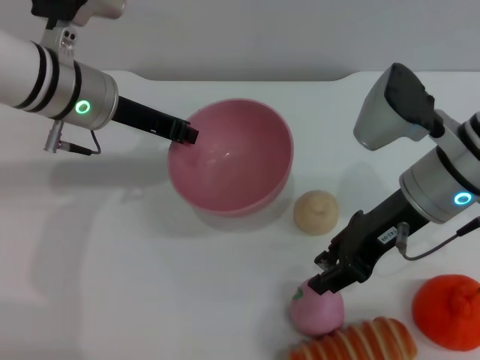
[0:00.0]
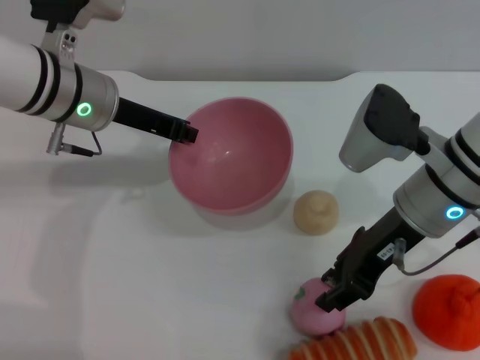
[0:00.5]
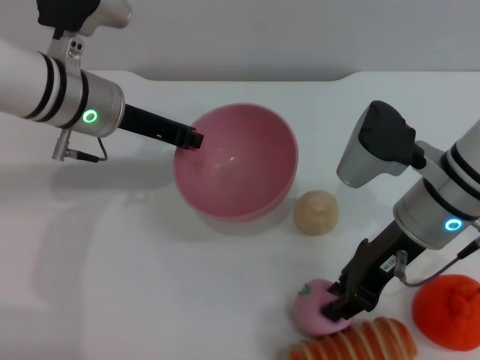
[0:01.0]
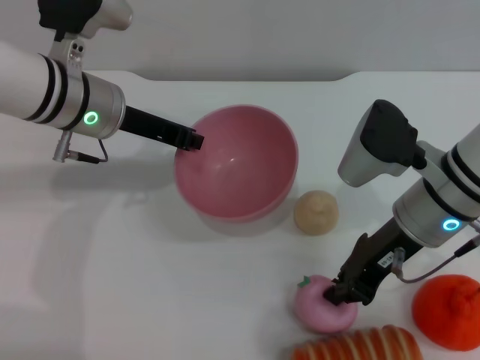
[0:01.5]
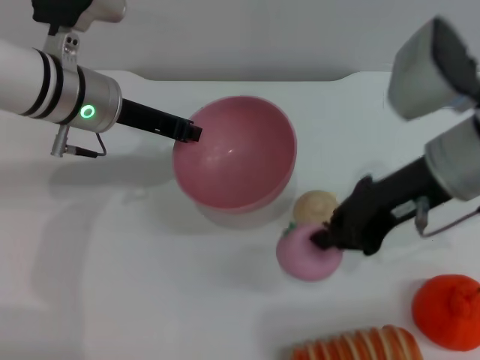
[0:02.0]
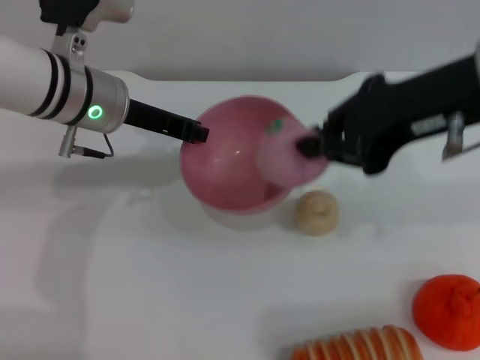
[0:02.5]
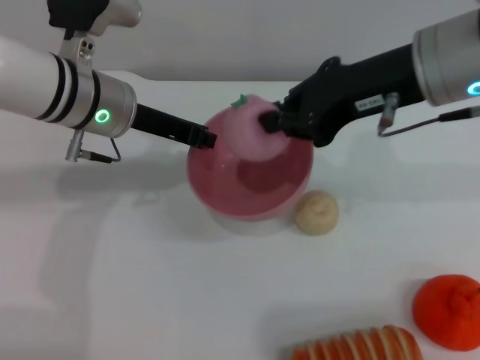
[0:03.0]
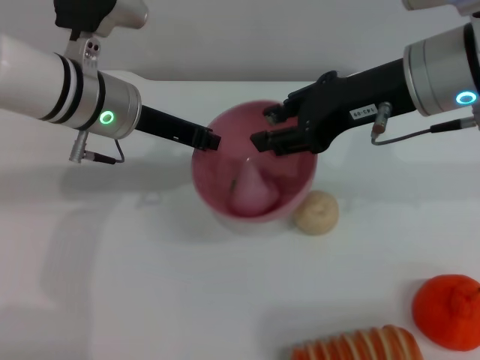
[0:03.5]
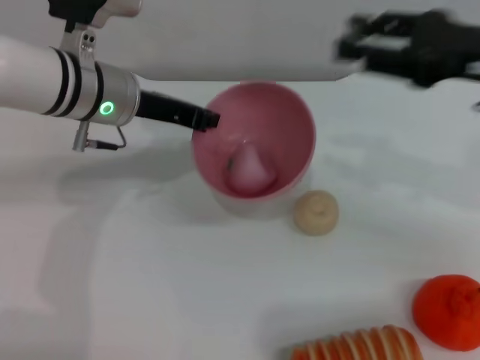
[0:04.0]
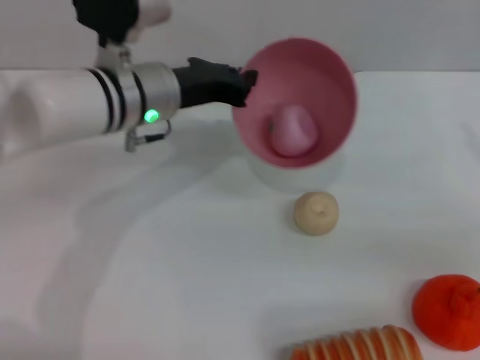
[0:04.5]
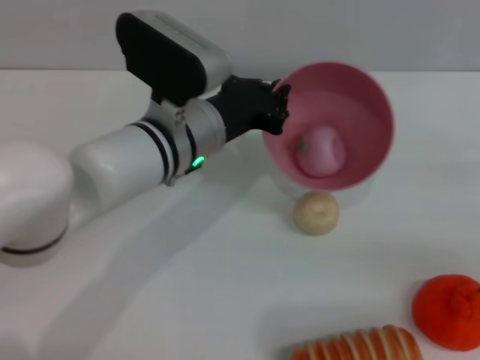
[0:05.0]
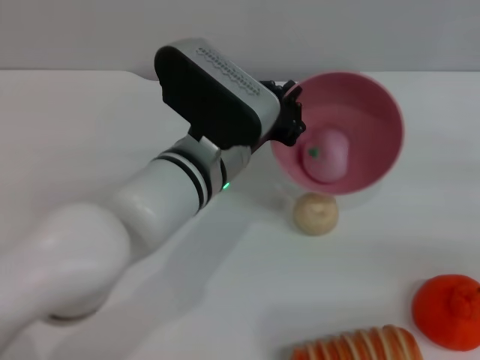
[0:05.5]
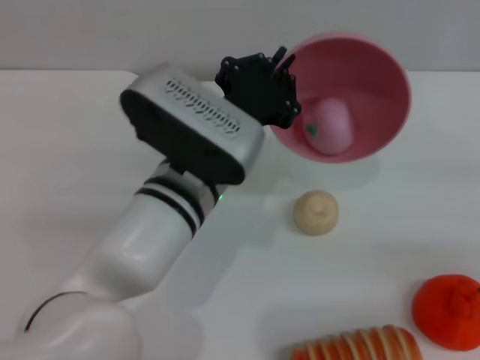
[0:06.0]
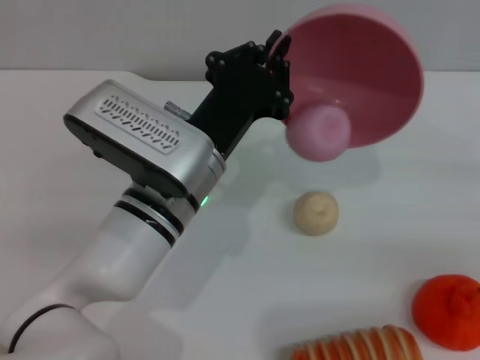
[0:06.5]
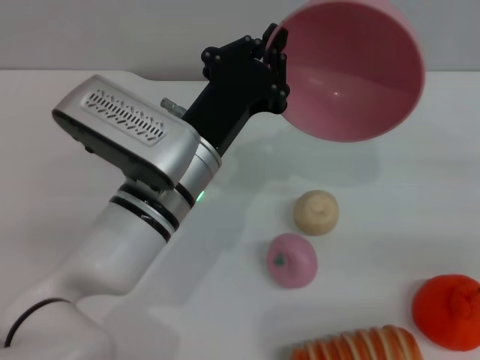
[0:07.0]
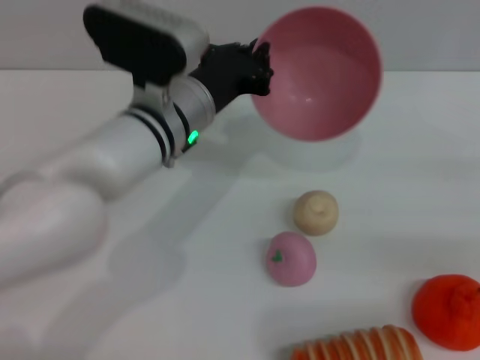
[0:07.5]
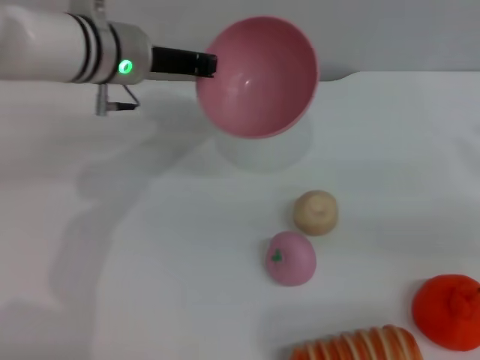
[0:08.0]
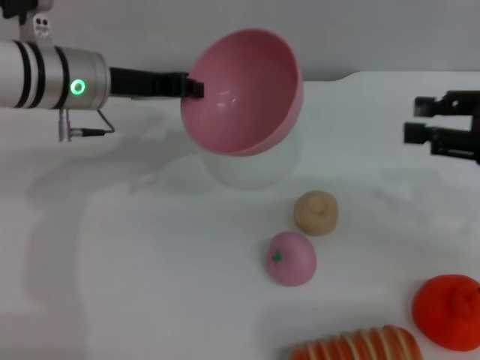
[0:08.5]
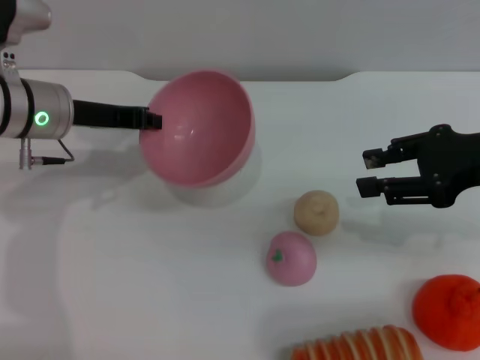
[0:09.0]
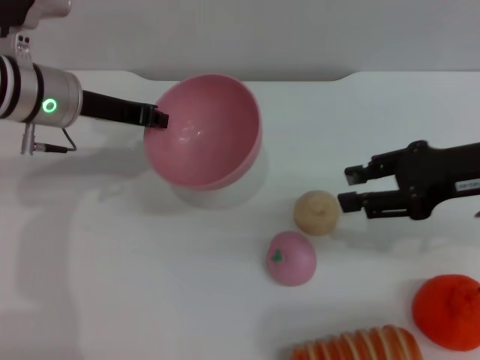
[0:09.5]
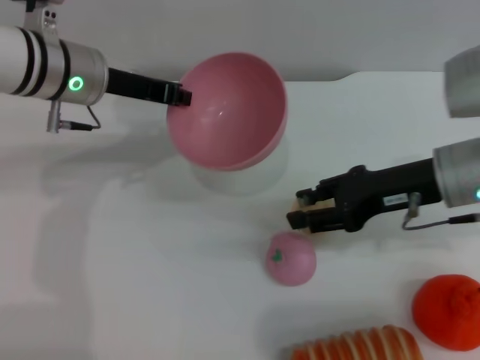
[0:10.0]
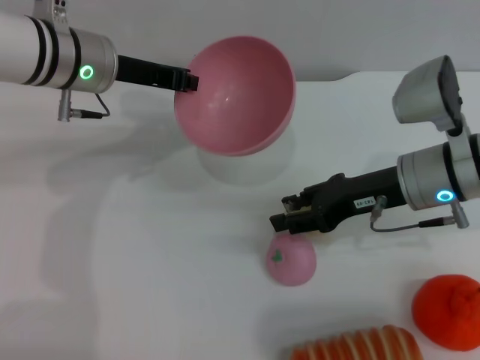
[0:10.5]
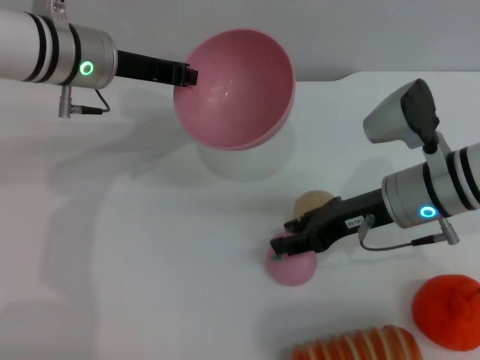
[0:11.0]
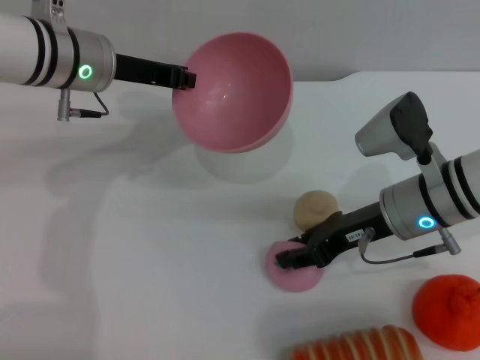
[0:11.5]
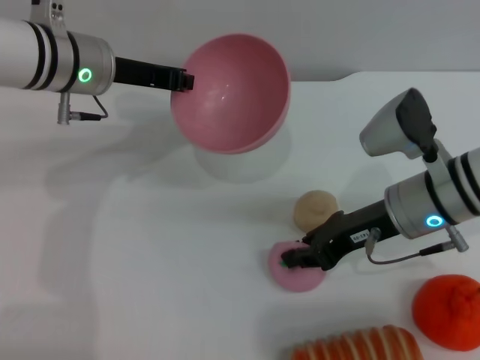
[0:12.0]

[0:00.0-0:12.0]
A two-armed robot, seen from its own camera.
Task of the whole recording: put the peach into the pink bowl and pour it out repeatedly.
Step, 0:00.0 to 0:02.0: Pick up the peach with the right gripper.
Step, 0:02.5 to 0:03.5: Place the peach into the bowl.
Step, 0:04.0 to 0:07.0: Pour the peach out of bowl.
0:00.0 to 0:02.0: The right gripper ends up about 5 cm from where it was, and closes its fingers.
0:02.0 to 0:04.0: The right gripper moves to the right, some 10 cm, and opens up.
0:04.0 to 0:06.0: The left gripper goes about 15 cm backward and to the right, while the right gripper goes about 20 cm to the right and downward.
0:06.0 to 0:08.0: The left gripper shifts about 15 cm forward, to the left and upward. Meanwhile the right gripper goes roughly 5 cm to the left.
0:08.0 to 0:10.0: The right gripper shifts roughly 20 cm to the left.
0:10.0 to 0:12.0: The right gripper closes its fingers.

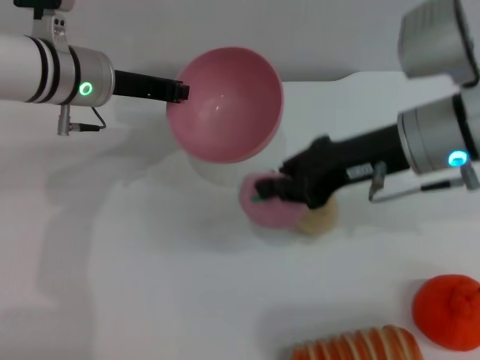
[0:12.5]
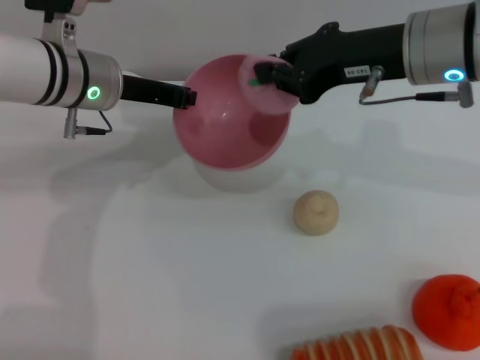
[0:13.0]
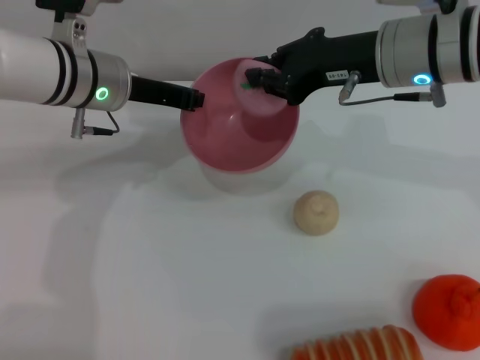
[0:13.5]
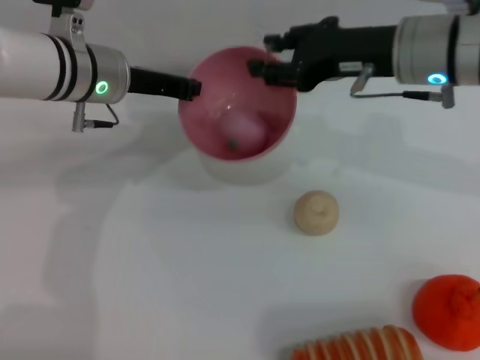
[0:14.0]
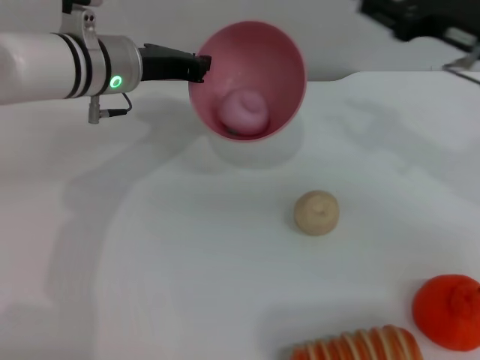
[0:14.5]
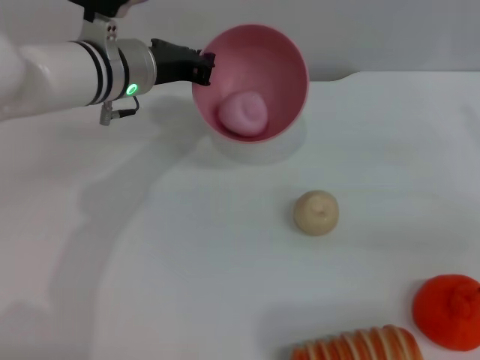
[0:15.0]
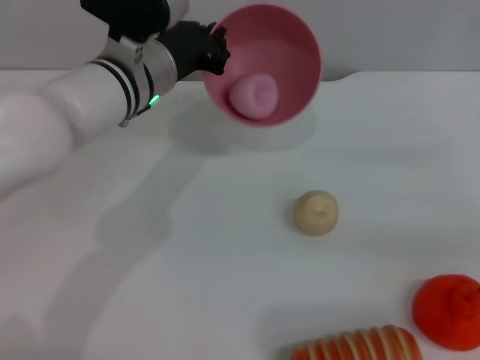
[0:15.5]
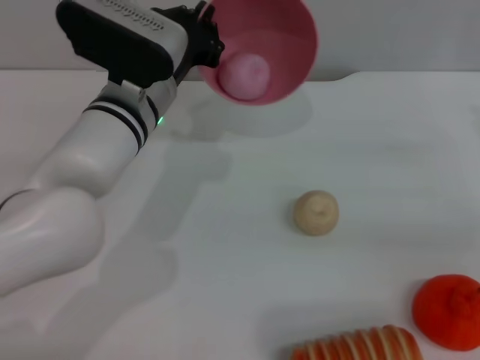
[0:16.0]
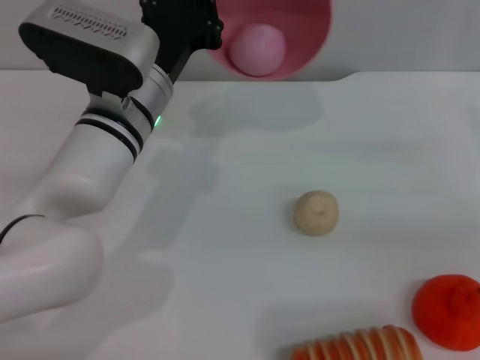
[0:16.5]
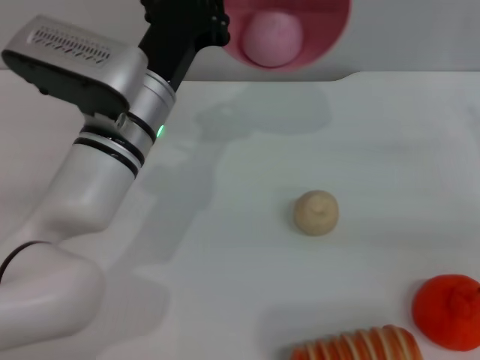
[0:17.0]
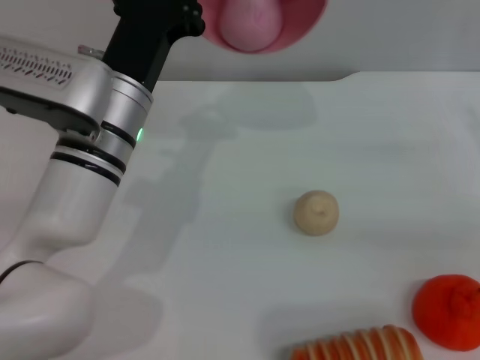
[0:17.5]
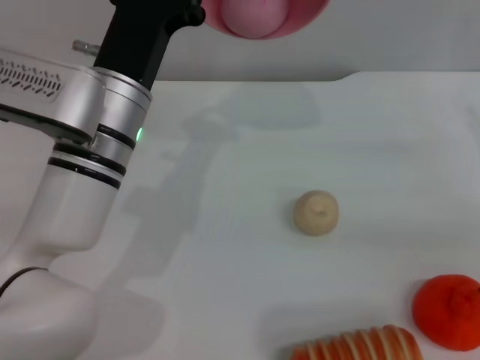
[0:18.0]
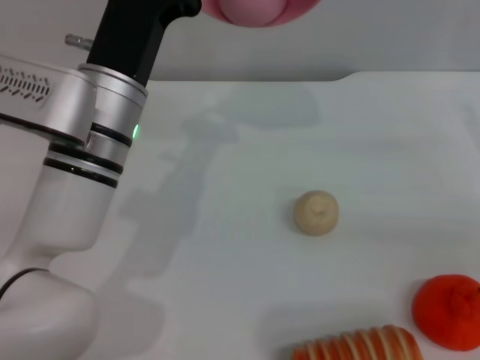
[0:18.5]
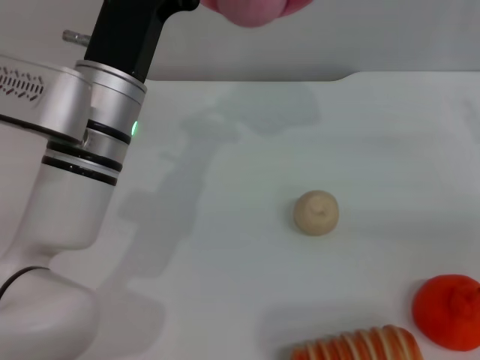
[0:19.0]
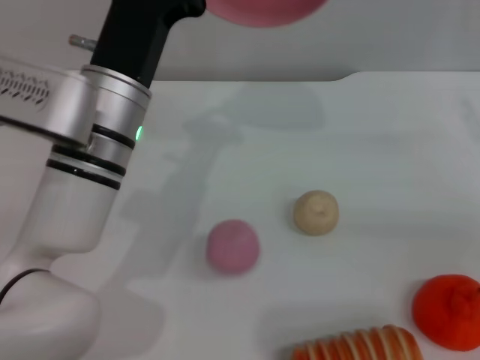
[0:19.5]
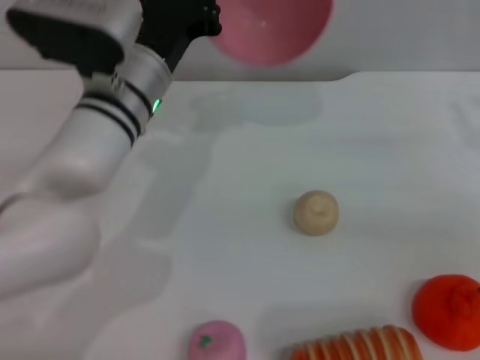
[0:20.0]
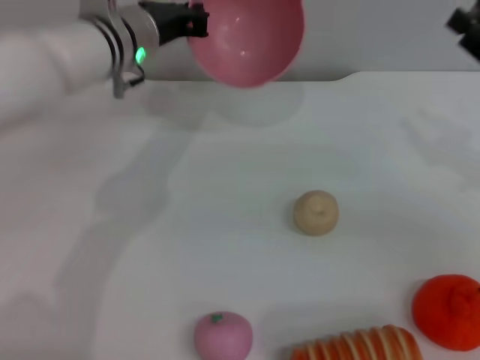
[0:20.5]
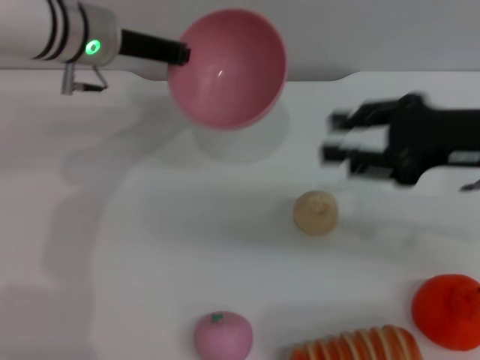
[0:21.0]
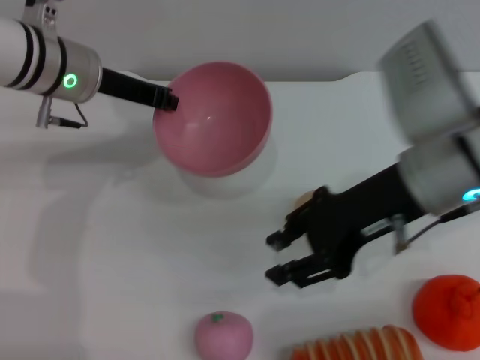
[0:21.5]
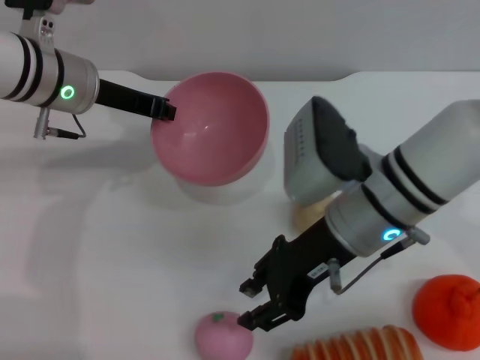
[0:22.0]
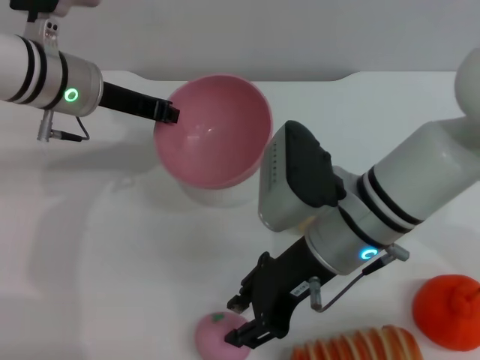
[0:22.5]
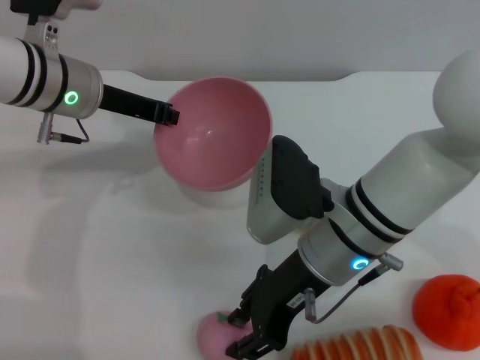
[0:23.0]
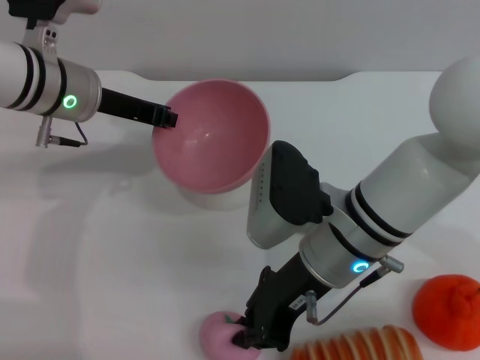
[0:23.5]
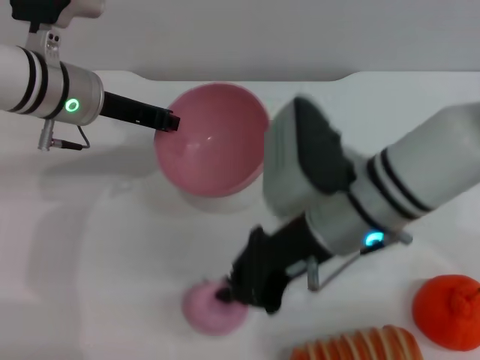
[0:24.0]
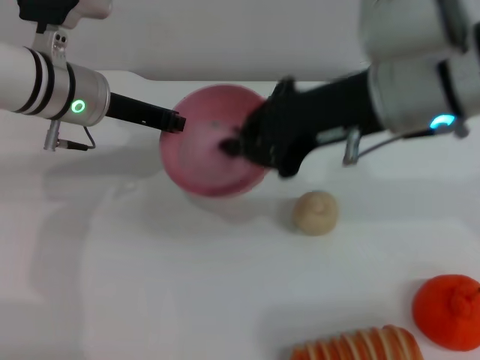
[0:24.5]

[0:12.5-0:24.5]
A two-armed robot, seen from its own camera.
Task of the whole recording: put the peach into the pink bowl and pour it out repeatedly.
Step, 0:13.0 to 0:13.5: Place the peach into the bowl.
Step, 0:14.5 to 0:19.5: Pour the peach out of bowl.
Step, 0:20.0 to 0:24.0: Pick up the peach with the right gripper.
0:12.5 to 0:14.5: The right gripper is displaced to the right by approximately 10 cm, and opens its fingers.
0:14.5 to 0:16.5: The right gripper shifts some 15 cm to the right and downward, while the left gripper moves backward, approximately 5 cm.
0:18.5 to 0:20.5: The left gripper heads forward, covering about 10 cm.
0:20.5 to 0:22.5: The right gripper heads to the left, covering about 25 cm. The left gripper moves to the left, about 5 cm.
0:22.5 to 0:24.5: The right gripper heads upward, covering roughly 15 cm, and closes.

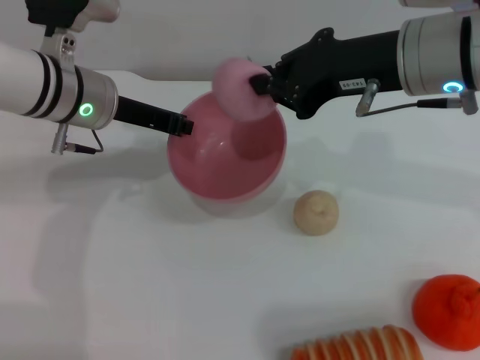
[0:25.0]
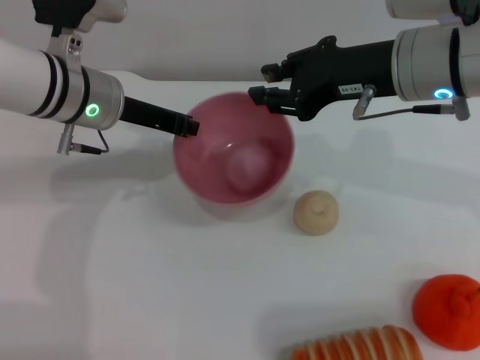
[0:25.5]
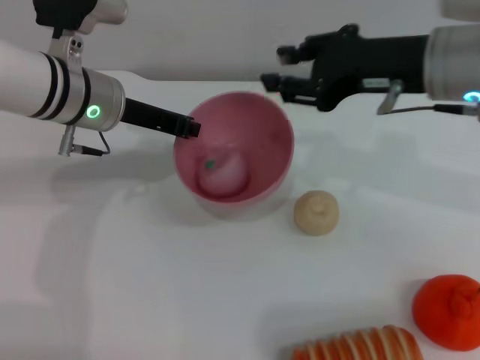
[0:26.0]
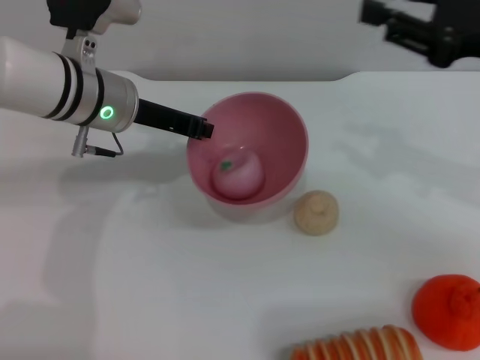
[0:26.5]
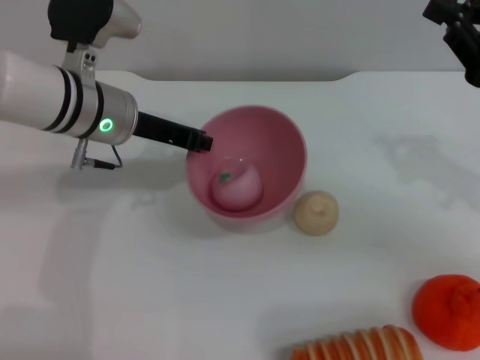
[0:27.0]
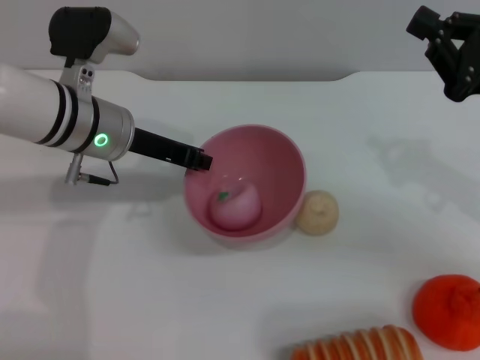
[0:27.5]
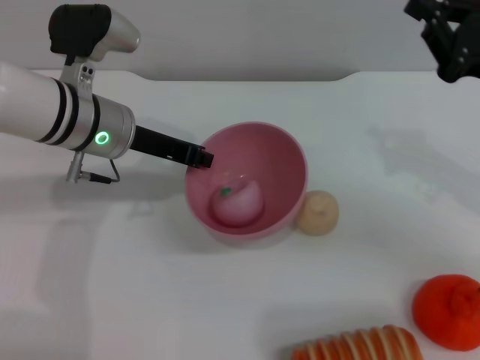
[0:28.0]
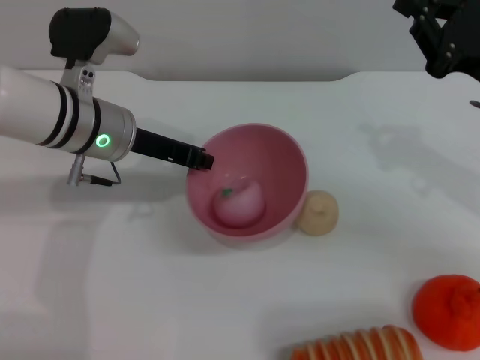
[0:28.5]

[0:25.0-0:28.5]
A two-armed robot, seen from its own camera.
Task of the whole recording: put the peach into the pink bowl and pour it out repeatedly.
0:25.0 to 0:27.0: The right gripper heads to the right and downward, covering approximately 15 cm, and opens and closes again.
0:27.0 to 0:28.5: The grippers stay close to where they were, moving slightly.
